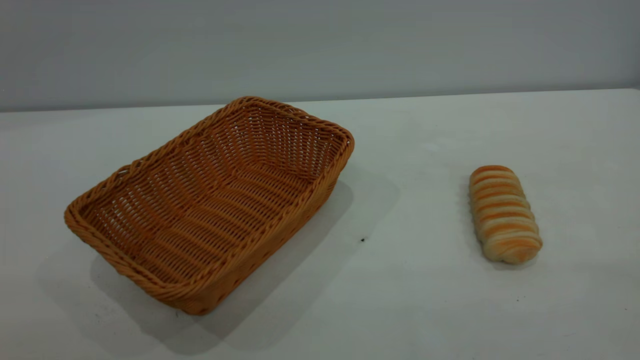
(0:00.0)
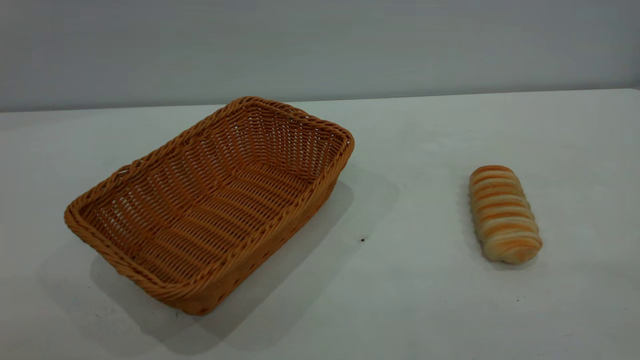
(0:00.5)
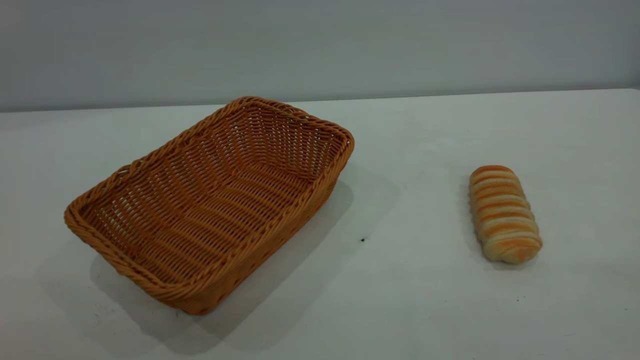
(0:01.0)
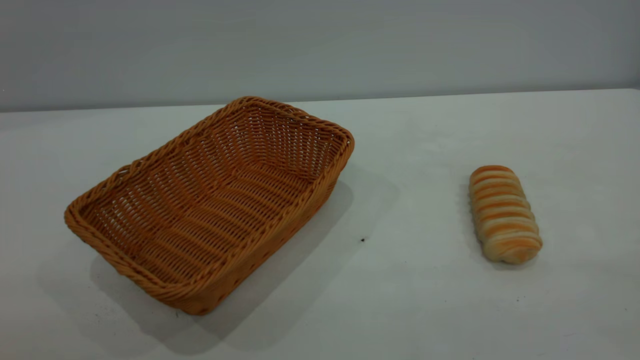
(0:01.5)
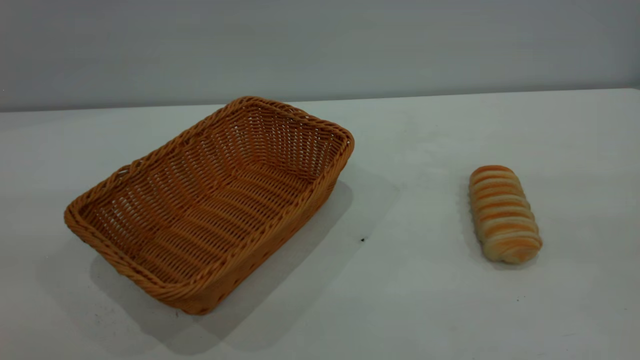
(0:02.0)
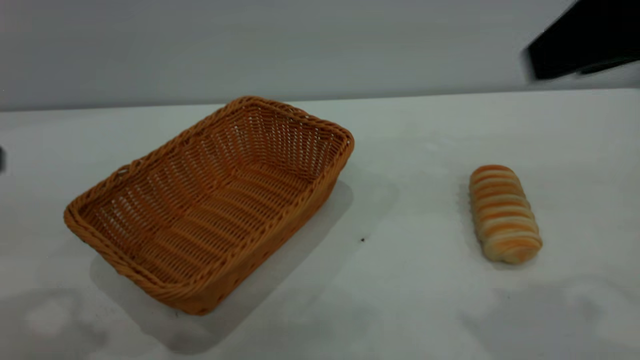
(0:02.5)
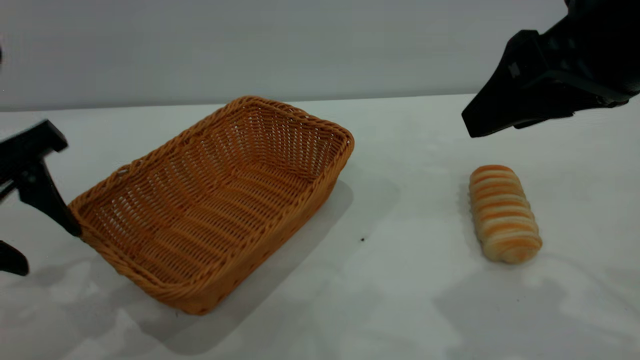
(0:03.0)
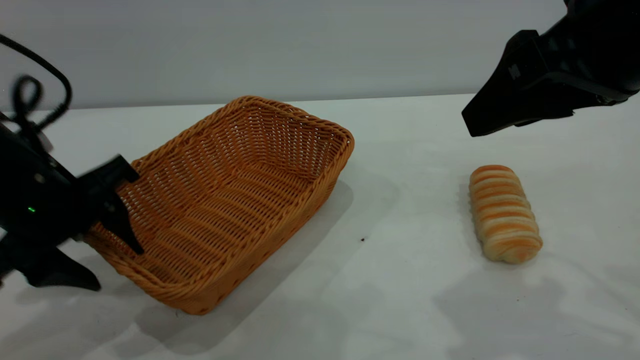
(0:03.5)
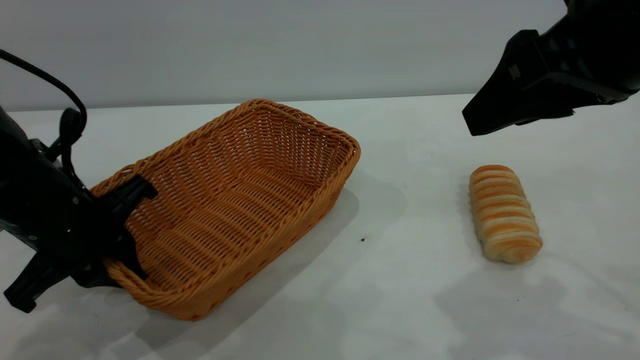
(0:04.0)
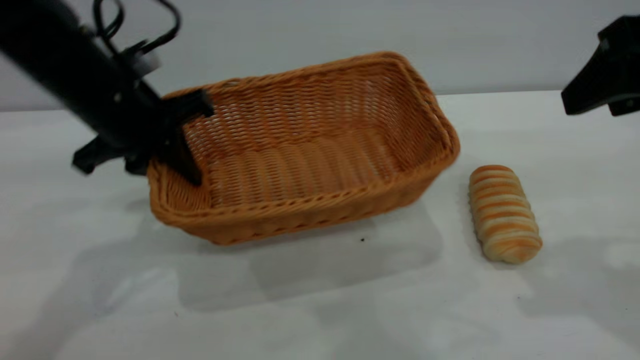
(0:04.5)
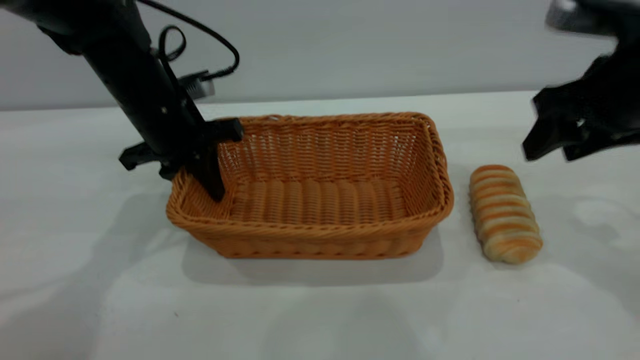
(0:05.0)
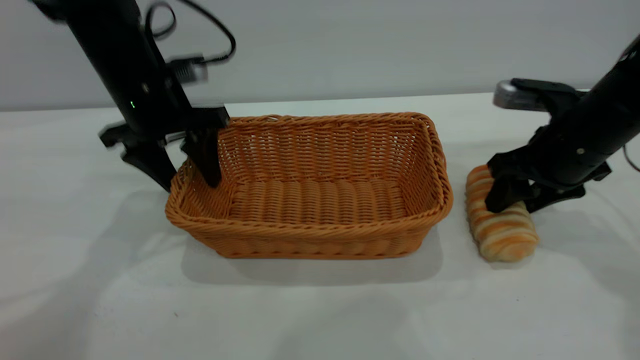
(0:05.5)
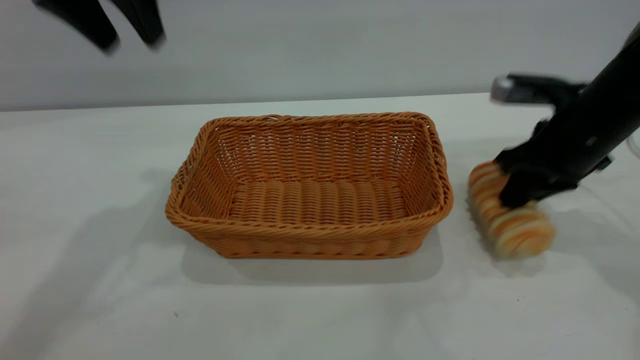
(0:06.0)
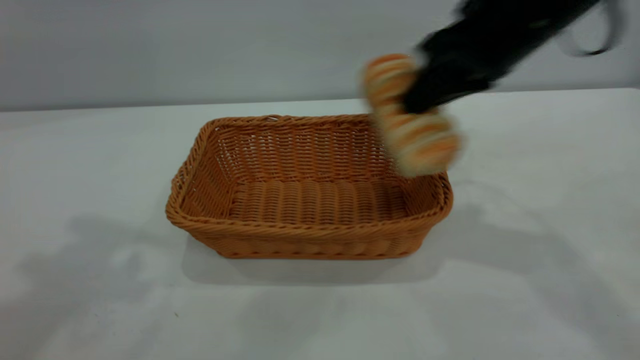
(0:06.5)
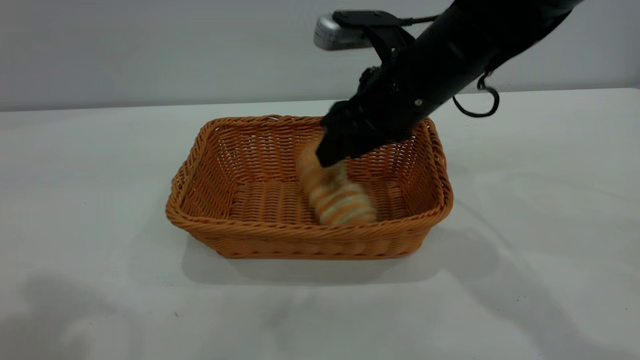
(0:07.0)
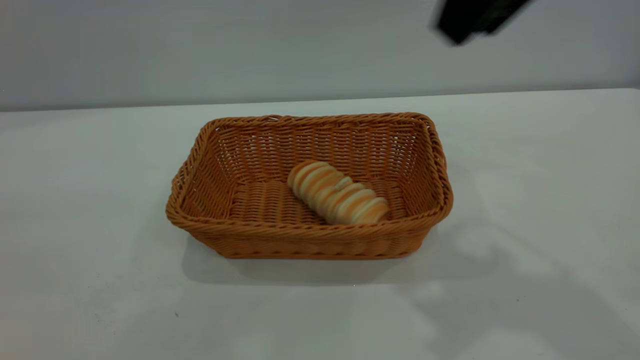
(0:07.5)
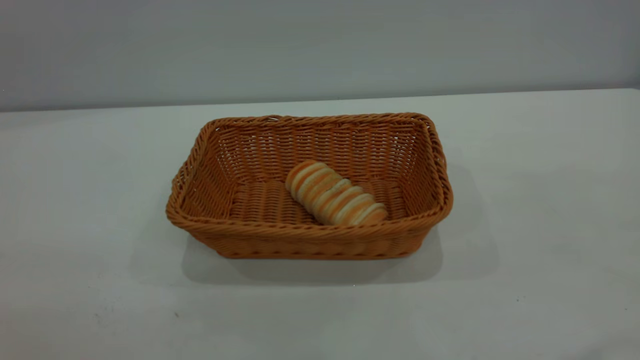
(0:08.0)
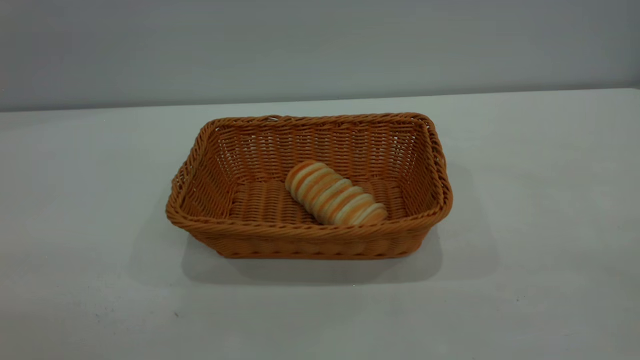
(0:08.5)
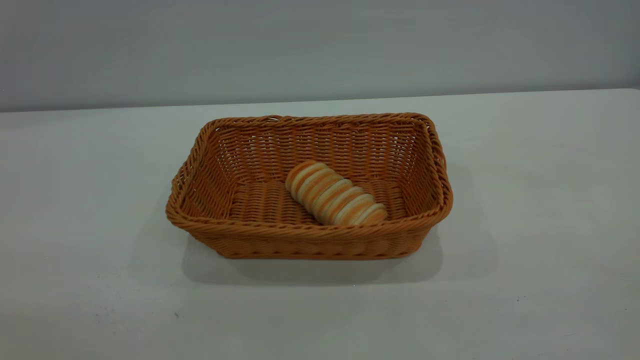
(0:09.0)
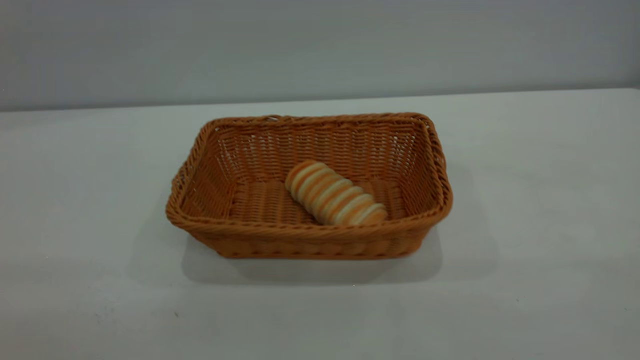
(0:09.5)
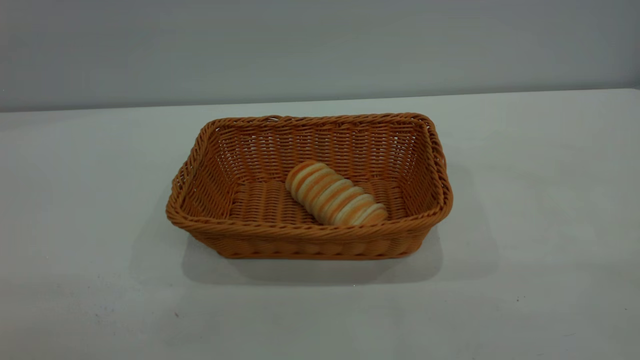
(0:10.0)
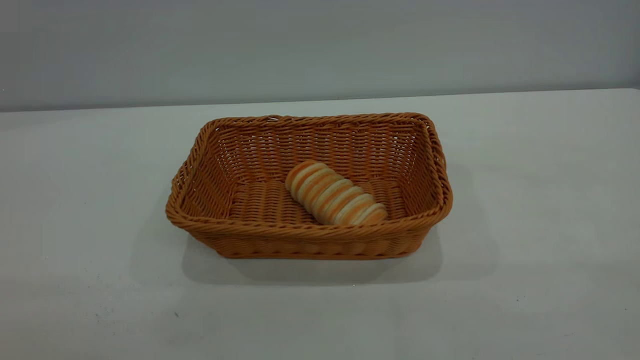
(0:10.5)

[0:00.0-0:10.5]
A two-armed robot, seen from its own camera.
Task of the whole recording: One hand grasps the yellow basket and places it in the middle of the table, while the other hand picks up the long bread and puts it into the yellow basket.
Step, 0:00.0 to 0:05.5: Move the basket to the center of view.
Step, 0:06.5 to 0:07.0: place the bread into the basket.
0:02.0 to 0:04.0: The right gripper is displaced forward, to the left and downward by roughly 20 cm; the left gripper heads downward and forward, covering approximately 30 cm, and closes up.
0:04.0 to 0:06.5: The right gripper shifts about 10 cm forward, travels downward and back again, roughly 20 cm each way, and closes, while the left gripper moves up and down over about 35 cm, changing direction 2 times, and opens.
0:06.5 to 0:08.5: The left gripper shifts roughly 30 cm backward and downward. Meanwhile the right gripper is displaced backward and to the right by about 35 cm, and opens up.

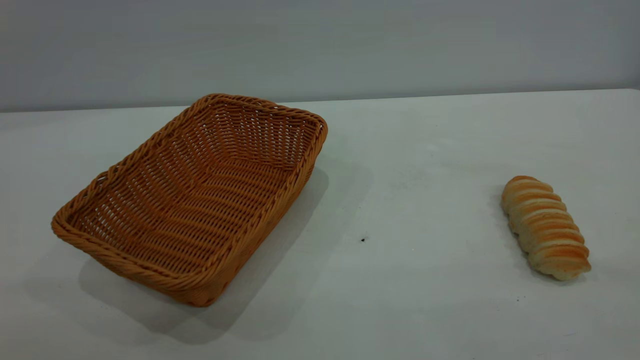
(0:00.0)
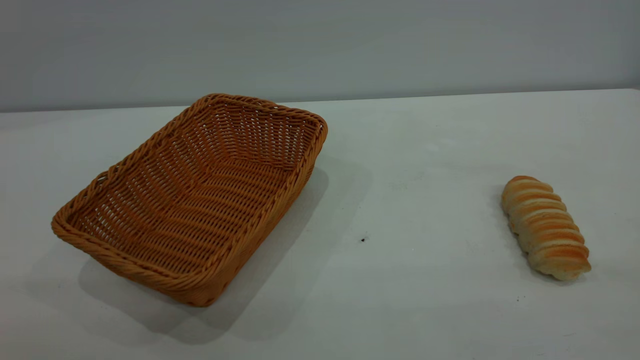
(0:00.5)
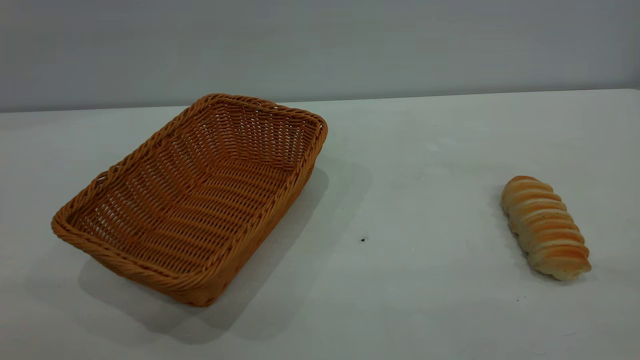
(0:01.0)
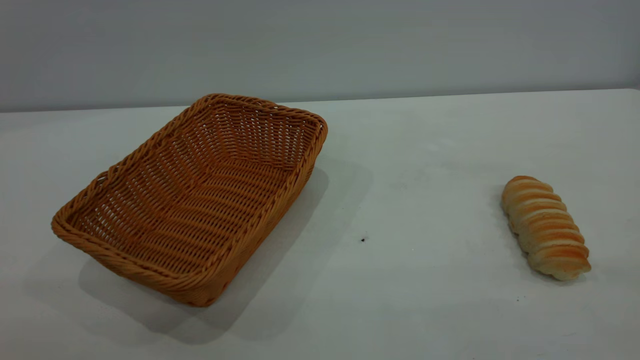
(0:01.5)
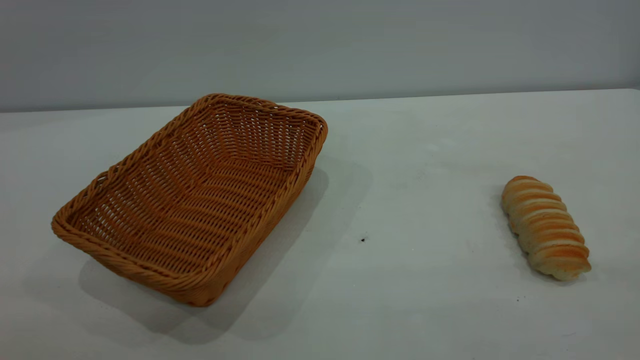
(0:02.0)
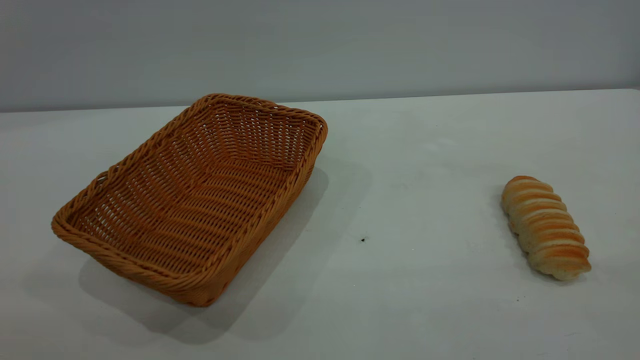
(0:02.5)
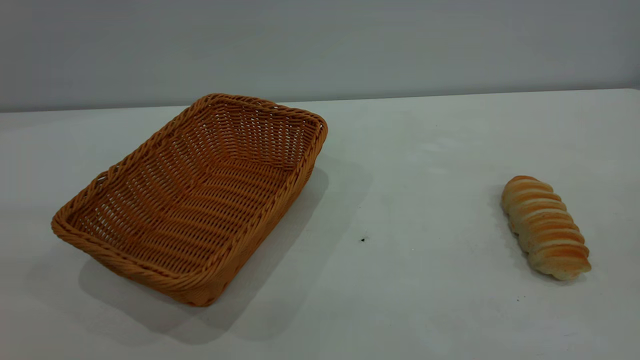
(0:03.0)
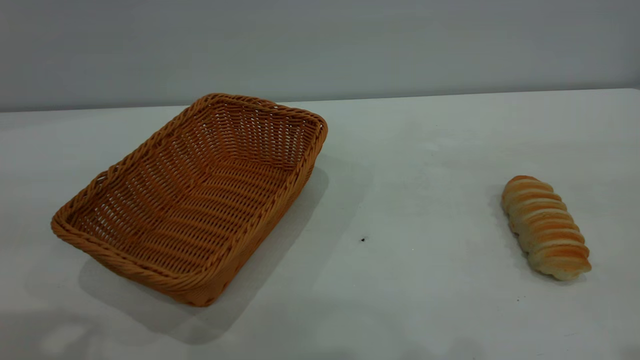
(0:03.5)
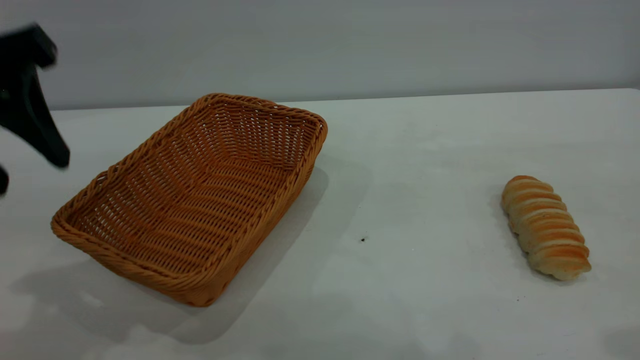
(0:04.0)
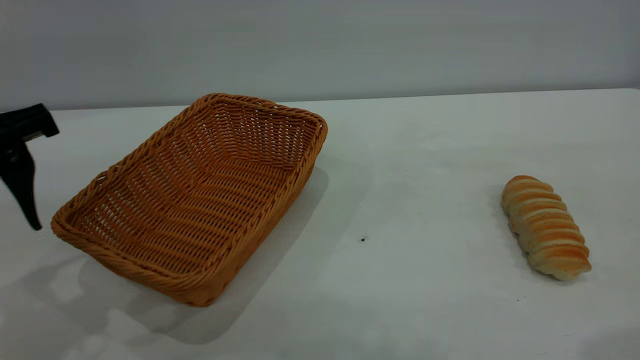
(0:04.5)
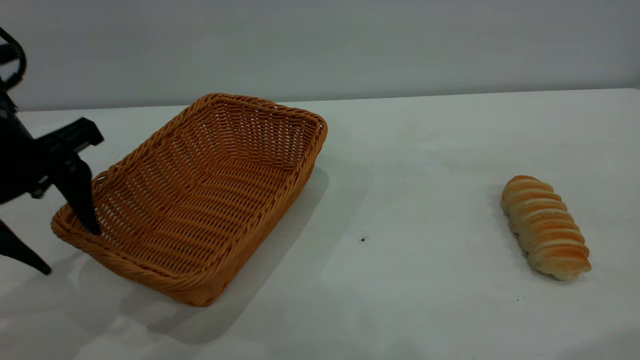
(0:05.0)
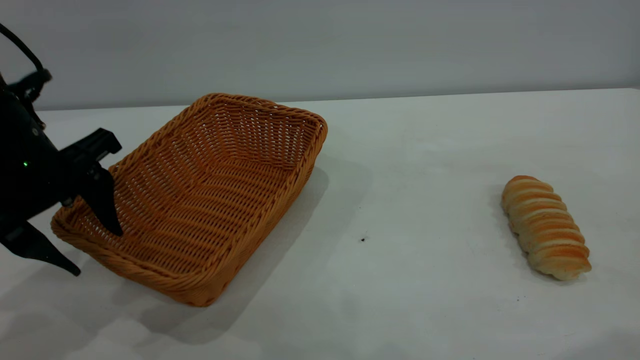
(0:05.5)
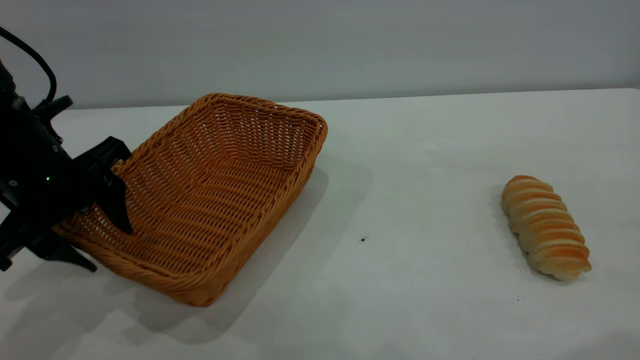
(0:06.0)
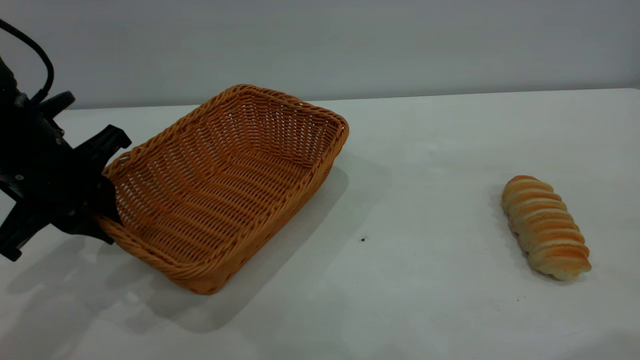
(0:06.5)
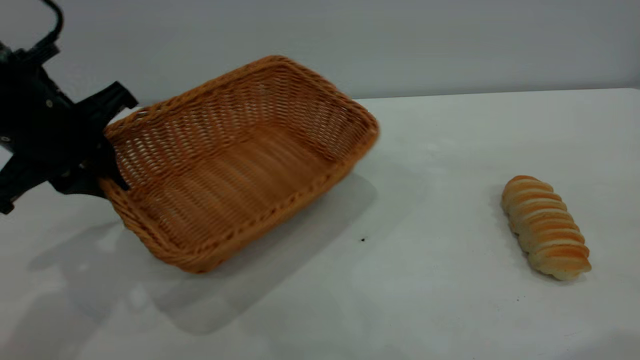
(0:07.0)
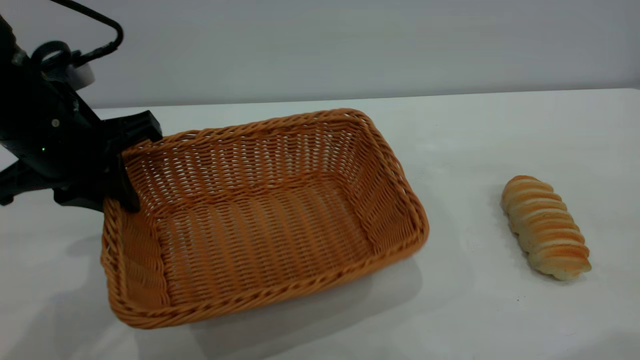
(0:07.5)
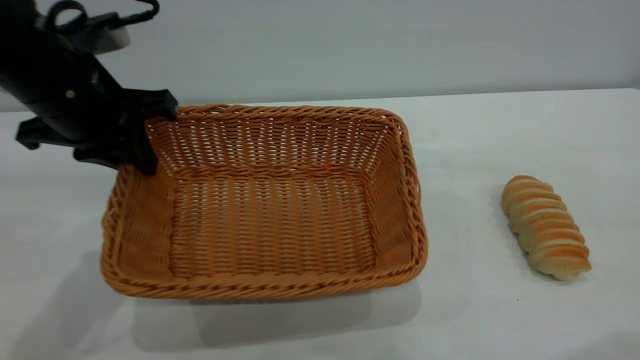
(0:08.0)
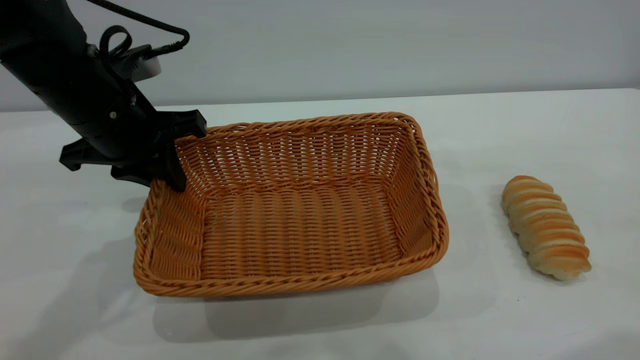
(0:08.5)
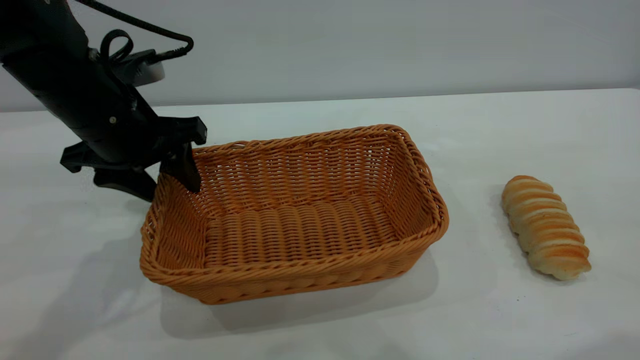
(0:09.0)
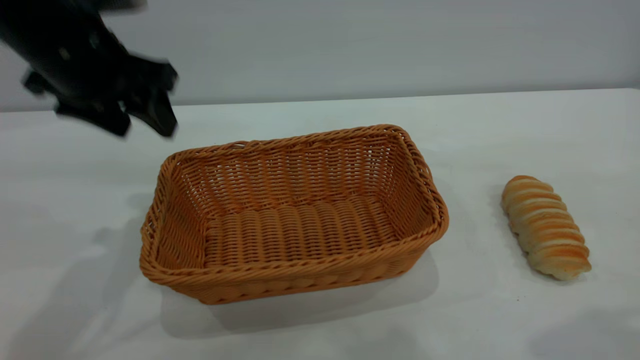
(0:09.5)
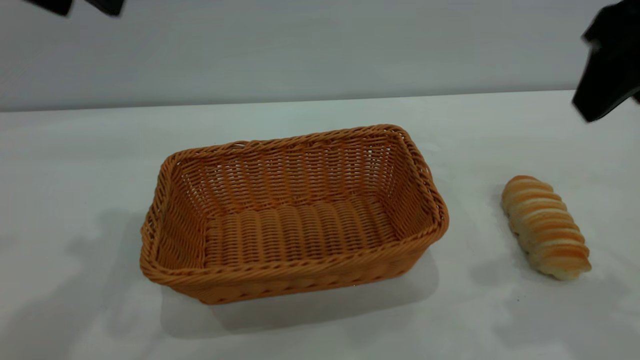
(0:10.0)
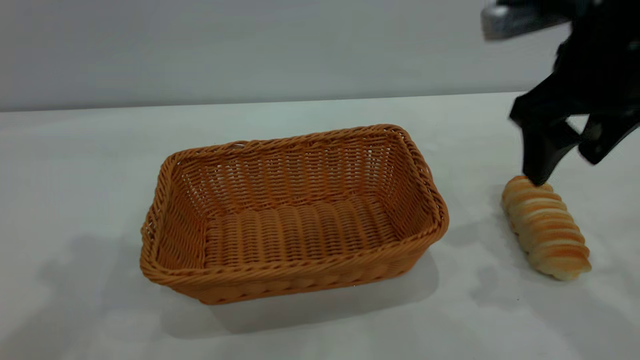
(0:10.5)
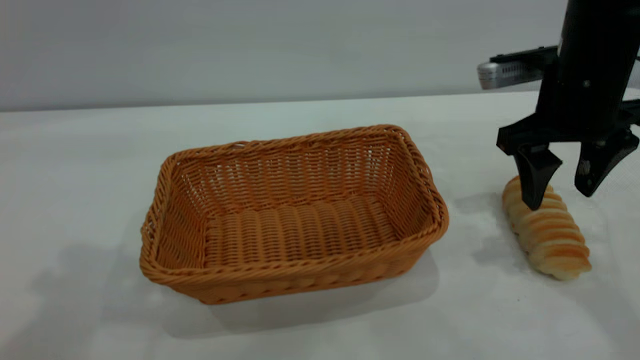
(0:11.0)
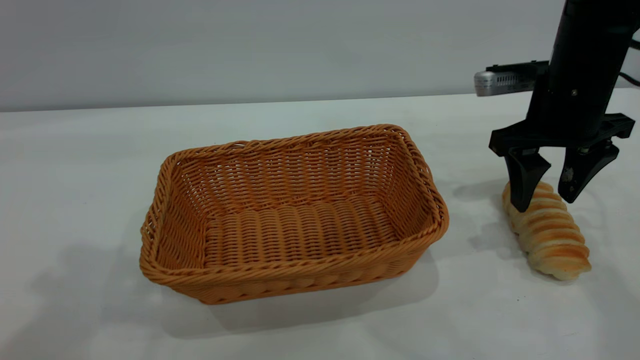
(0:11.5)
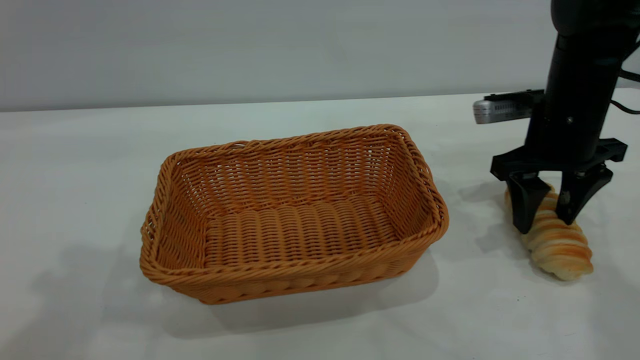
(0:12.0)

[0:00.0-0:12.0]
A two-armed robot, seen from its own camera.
Task of the whole recording: One hand grasps the yellow basket and places it in the middle of the table, while the other hand picks up the long bread and puts it into the yellow basket.
Step, 0:00.0 to 0:09.0: Move the basket to the center of view.
0:02.0 to 0:04.0: The left gripper moves forward, approximately 25 cm.
0:04.0 to 0:06.0: The left gripper goes about 15 cm downward and forward.
0:06.0 to 0:08.0: The left gripper shifts by approximately 5 cm, and closes up.
0:08.0 to 0:10.0: The left gripper moves upward, some 15 cm, and opens. The right gripper heads forward, covering about 10 cm.
0:10.0 to 0:12.0: The left gripper travels upward and backward by roughly 10 cm; the right gripper travels downward and forward by some 25 cm.
